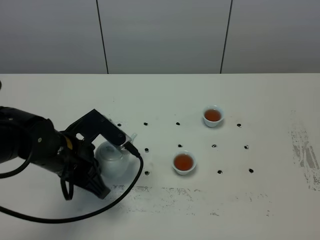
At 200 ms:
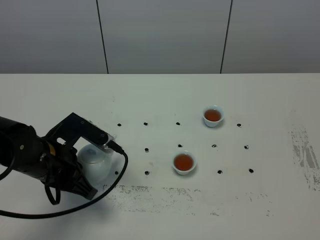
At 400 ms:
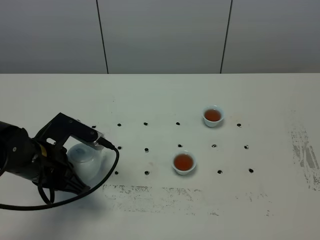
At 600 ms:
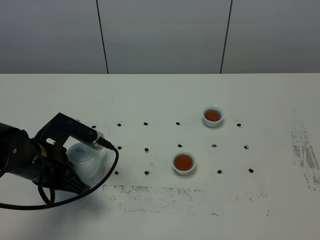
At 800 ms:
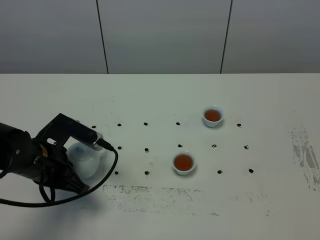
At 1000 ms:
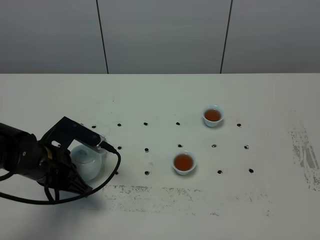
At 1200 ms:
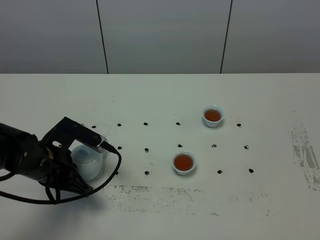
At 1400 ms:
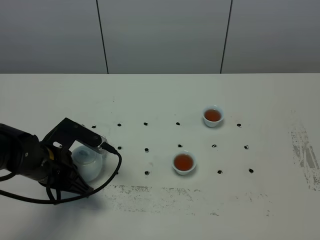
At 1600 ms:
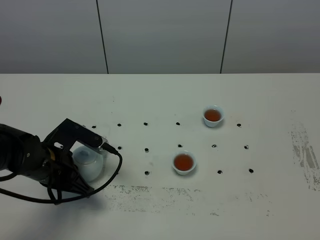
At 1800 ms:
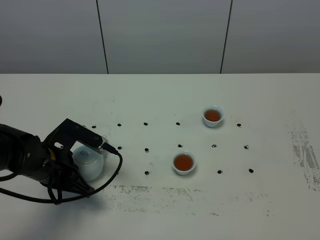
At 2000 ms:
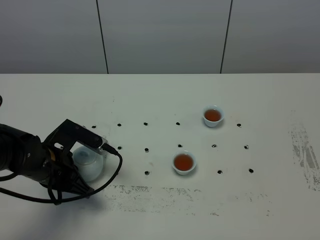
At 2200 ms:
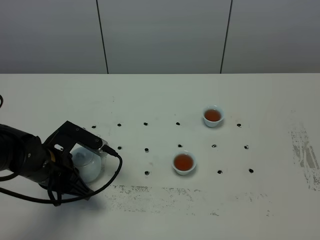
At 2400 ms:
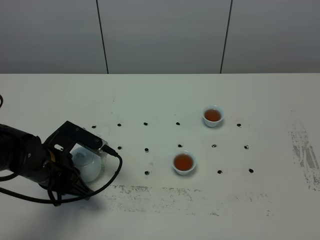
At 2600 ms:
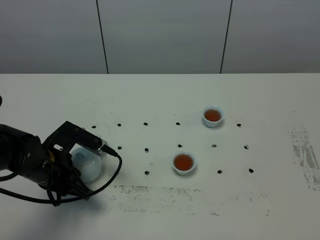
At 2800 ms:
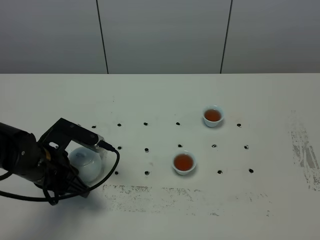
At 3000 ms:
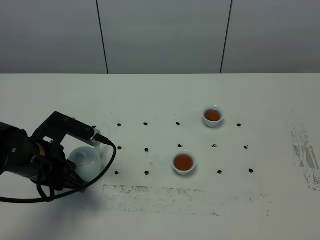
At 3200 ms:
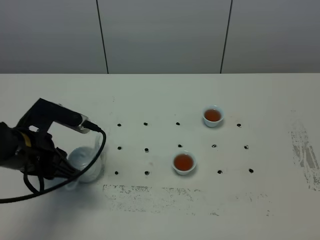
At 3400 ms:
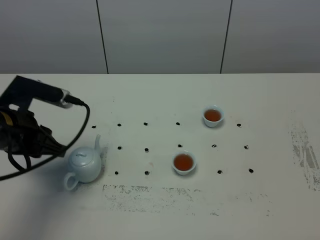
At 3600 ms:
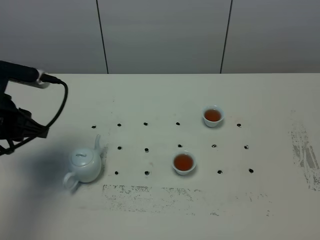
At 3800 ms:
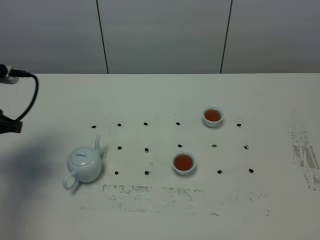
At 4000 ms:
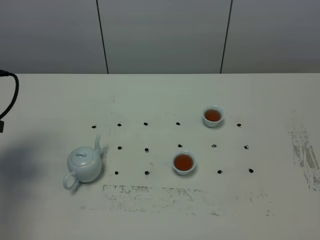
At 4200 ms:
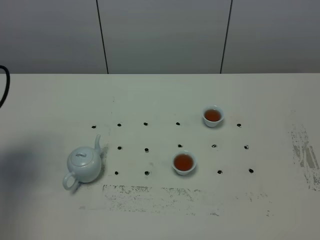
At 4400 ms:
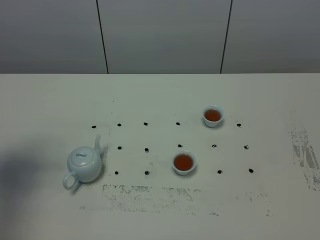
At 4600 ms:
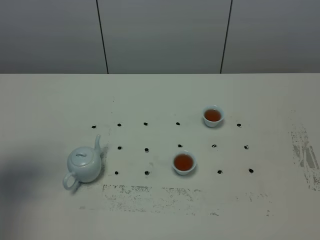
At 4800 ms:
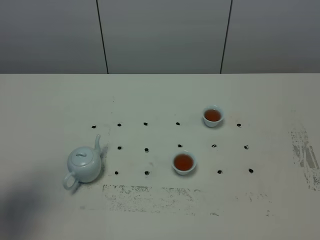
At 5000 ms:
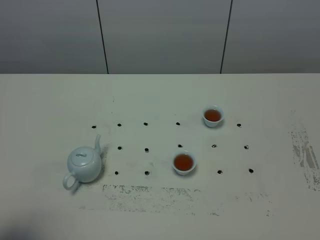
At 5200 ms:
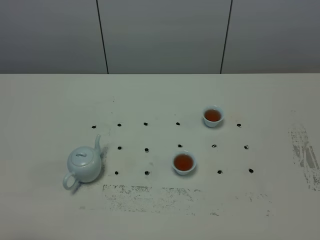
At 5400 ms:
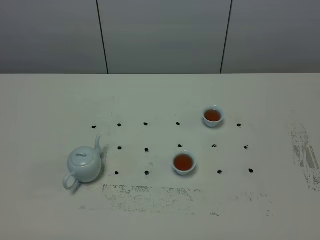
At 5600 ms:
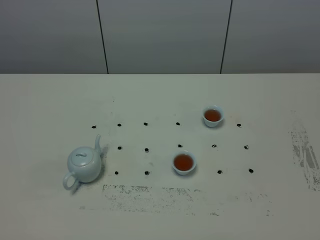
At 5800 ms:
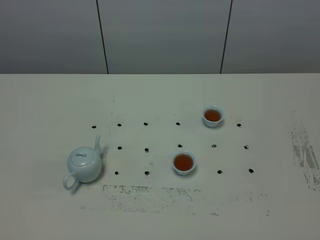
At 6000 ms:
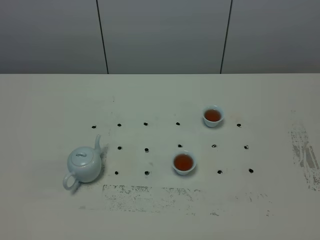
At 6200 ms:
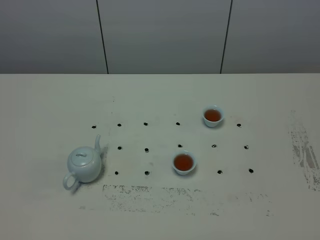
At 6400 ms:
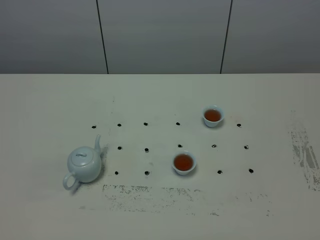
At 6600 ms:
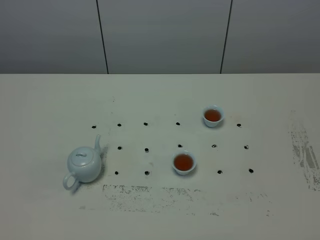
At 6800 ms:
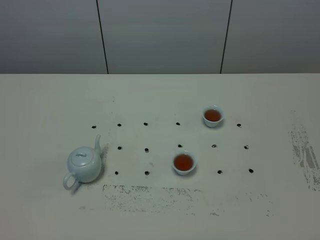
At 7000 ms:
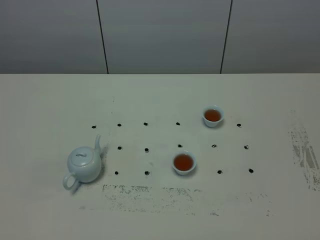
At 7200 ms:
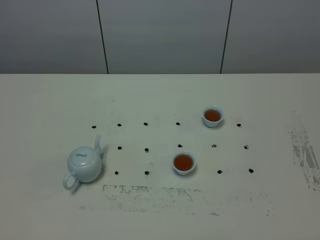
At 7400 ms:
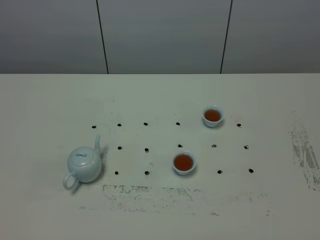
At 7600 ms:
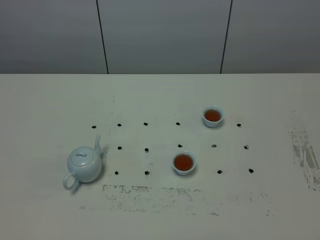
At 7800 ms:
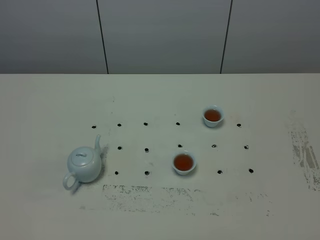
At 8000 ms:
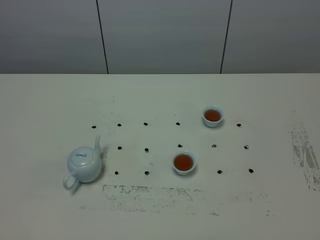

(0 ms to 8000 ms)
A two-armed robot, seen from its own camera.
Task of the whole recording: grasp the blue porcelain teapot and pour the tea into the two blue porcelain teacups one by one, put the blue porcelain teapot back in its original place.
0 ms - 1600 ms: The left gripper changes place by some 5 cm.
1600 ms - 3200 ms: The left gripper goes approximately 5 cm upward, and opens.
3200 ms - 4800 ms: The left gripper goes some 15 cm upward, backward and to the left.
4800 ms - 6400 ms: The left gripper goes about 20 cm backward.
6400 ms - 8000 ms: The two grippers keep their place.
